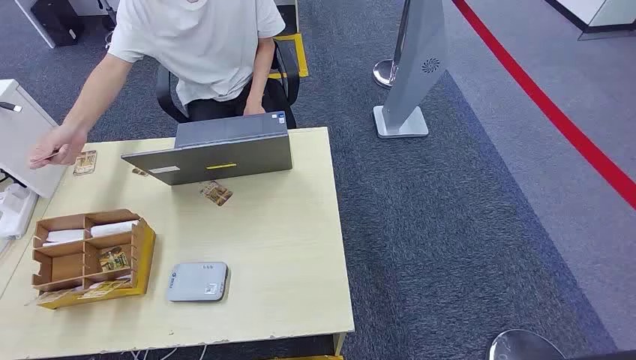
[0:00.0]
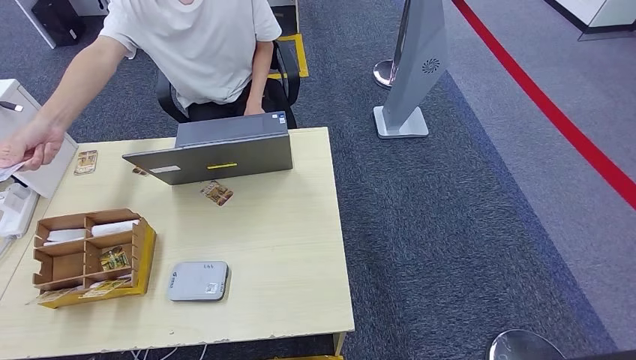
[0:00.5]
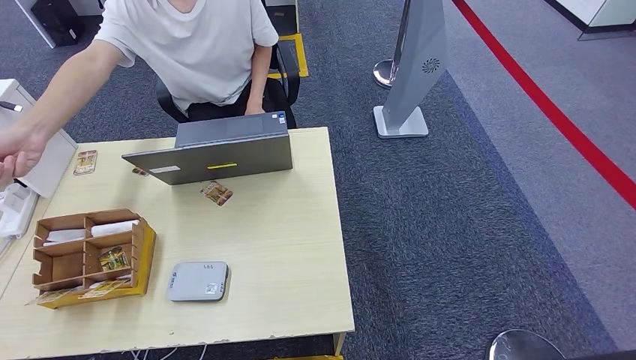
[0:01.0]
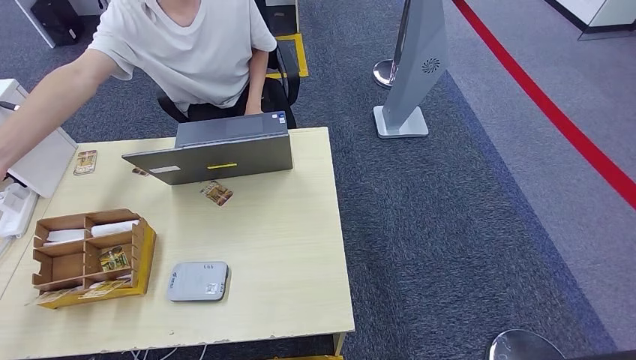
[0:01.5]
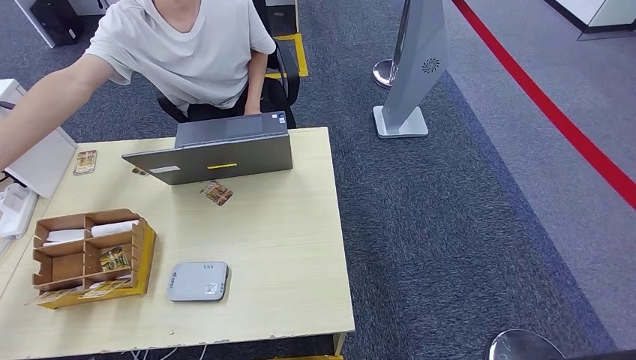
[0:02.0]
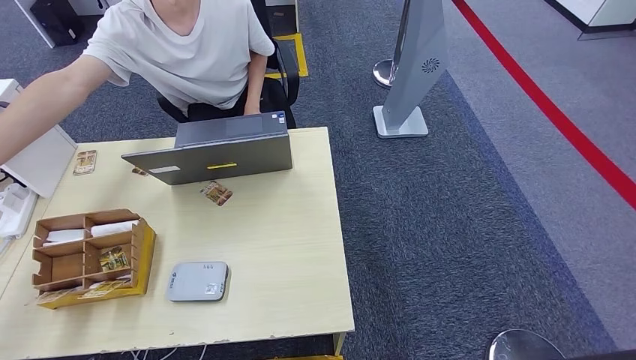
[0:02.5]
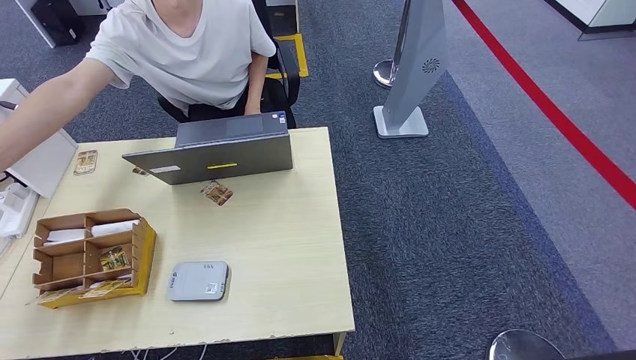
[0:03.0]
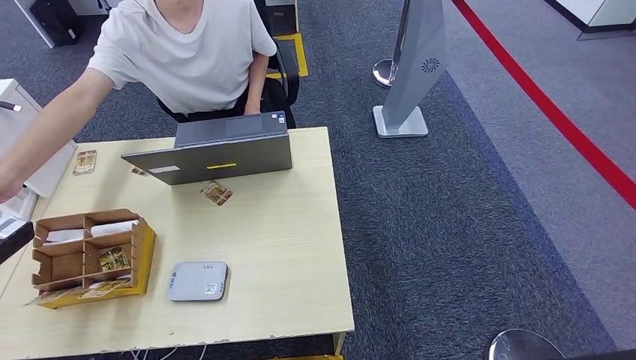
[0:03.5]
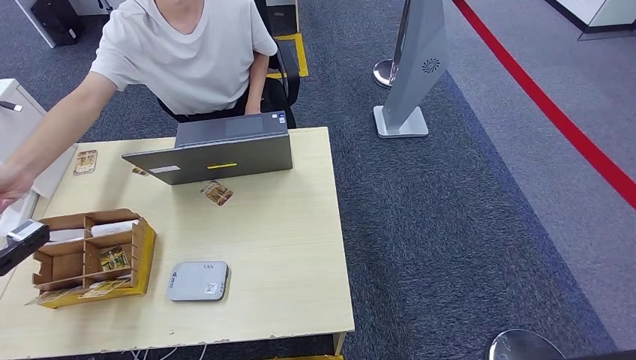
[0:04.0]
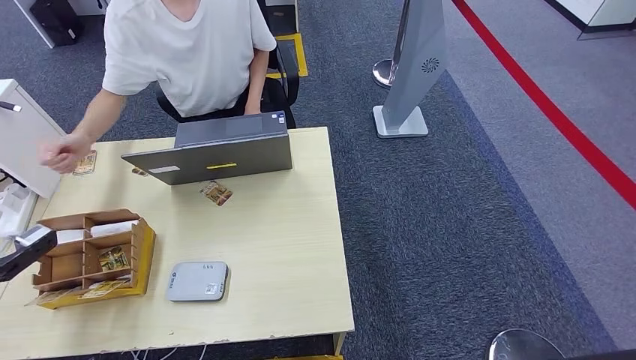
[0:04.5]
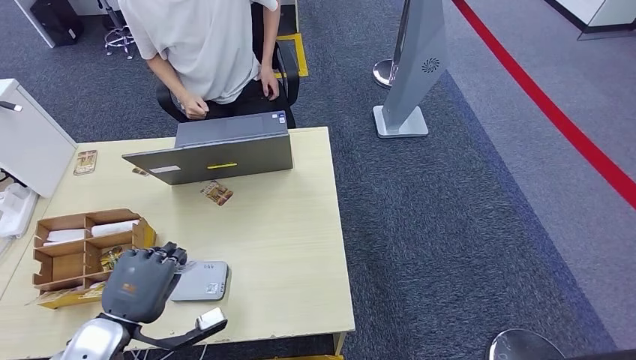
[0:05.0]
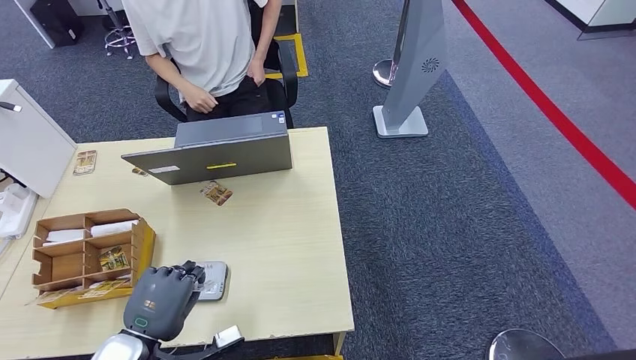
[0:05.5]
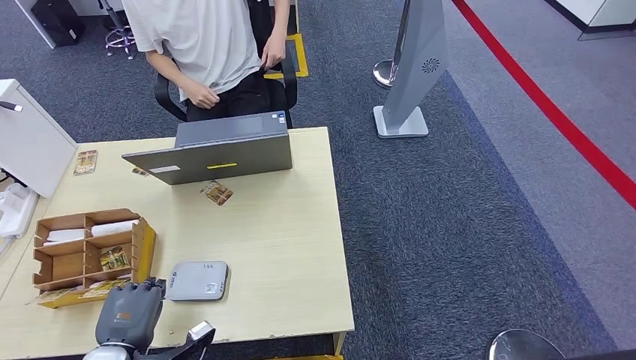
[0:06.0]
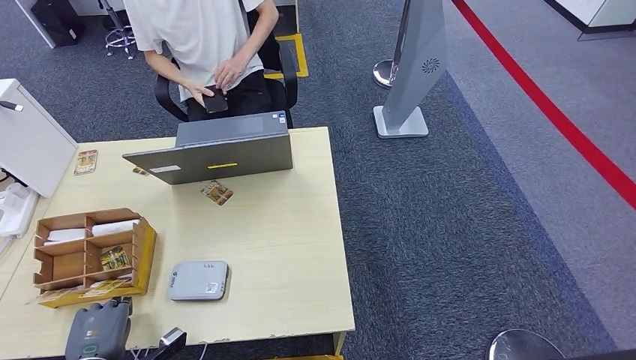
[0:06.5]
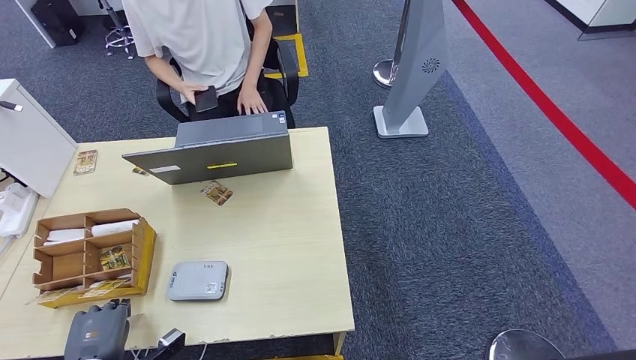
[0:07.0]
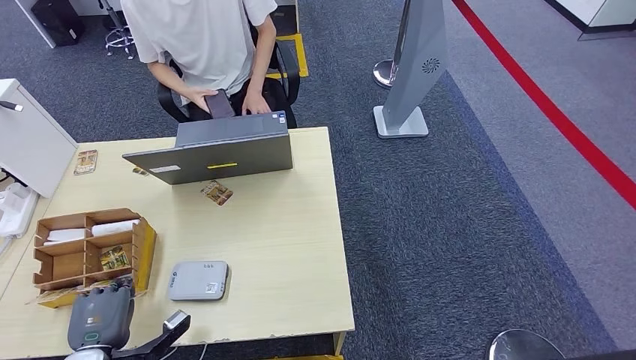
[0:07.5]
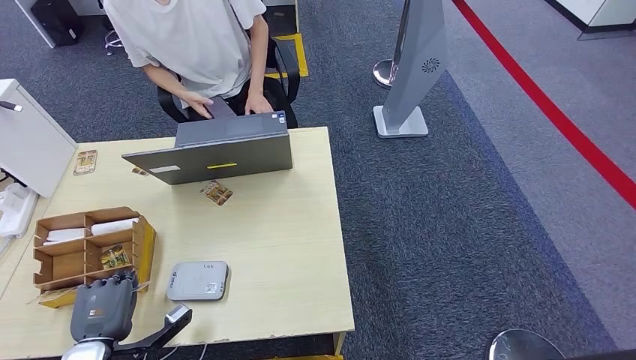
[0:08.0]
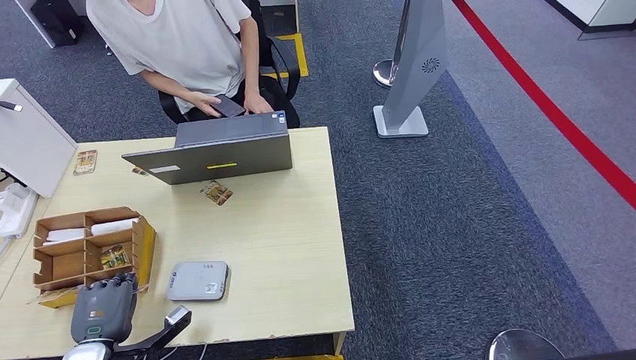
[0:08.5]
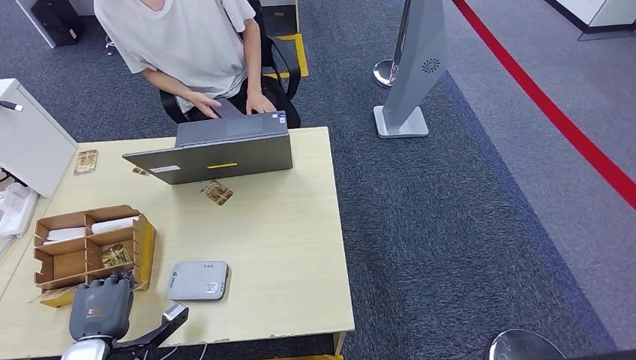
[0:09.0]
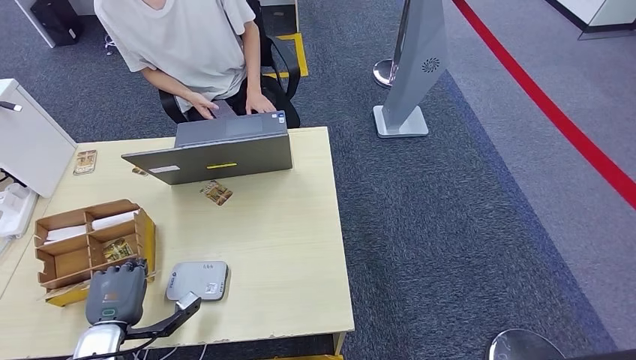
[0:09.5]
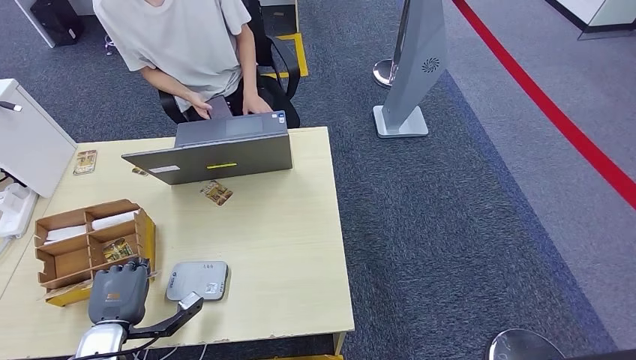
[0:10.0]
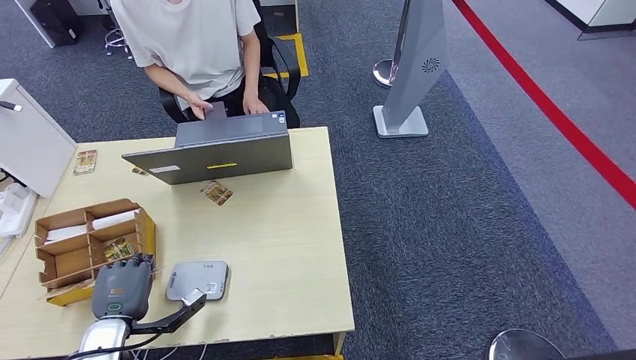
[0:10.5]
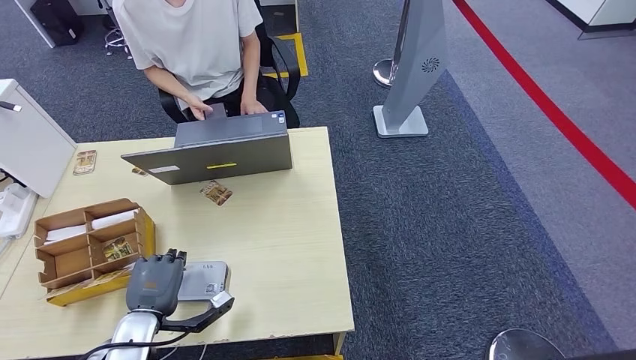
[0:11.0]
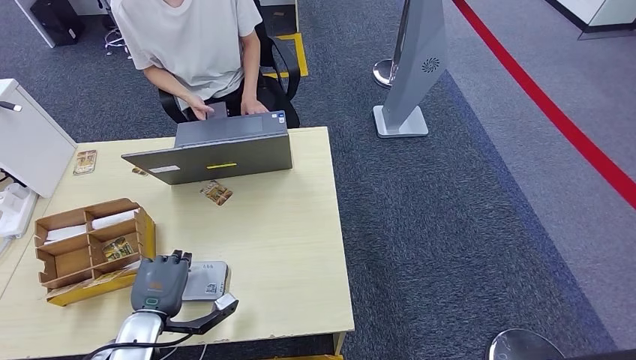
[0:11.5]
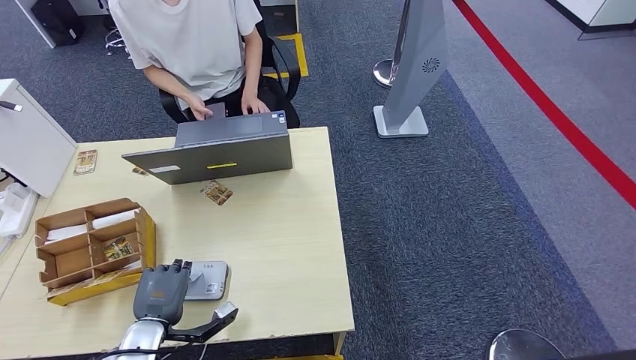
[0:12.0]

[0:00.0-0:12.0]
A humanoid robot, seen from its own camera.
Step, 0.0 to 4.0 s: Take the ID card from the person's hand.
Step, 4.5 to 7.0 s: Place the ID card on the card reader.
2.0 to 4.0 s: The left hand heads to the right and forward, covering roughly 10 cm.
4.0 to 6.0 s: The left hand goes some 25 cm to the right, downward and backward.
6.0 to 8.0 s: The left hand shifts by roughly 5 cm.
8.0 to 10.0 s: The hands make only small movements.
10.0 to 12.0 s: The left hand shifts roughly 5 cm to the right.

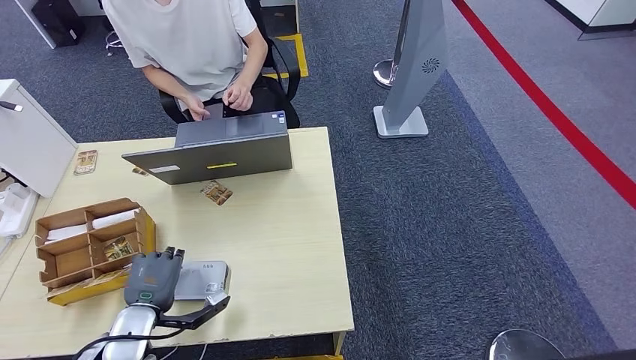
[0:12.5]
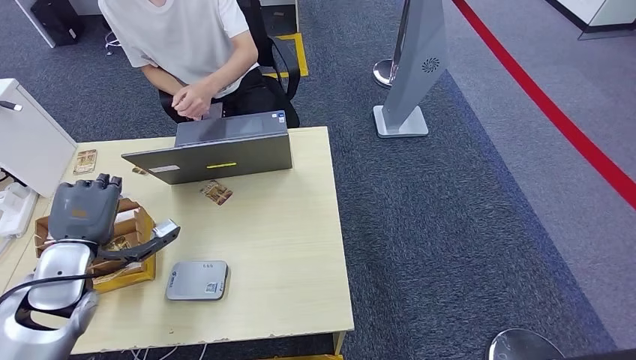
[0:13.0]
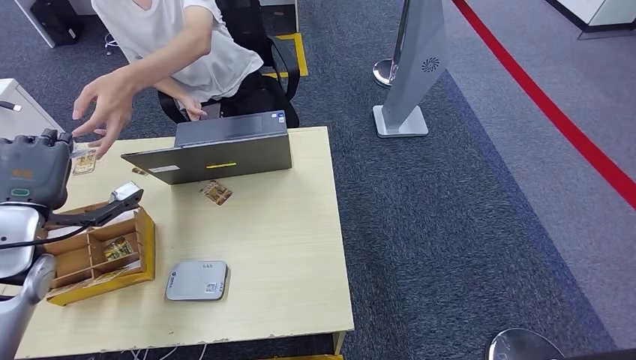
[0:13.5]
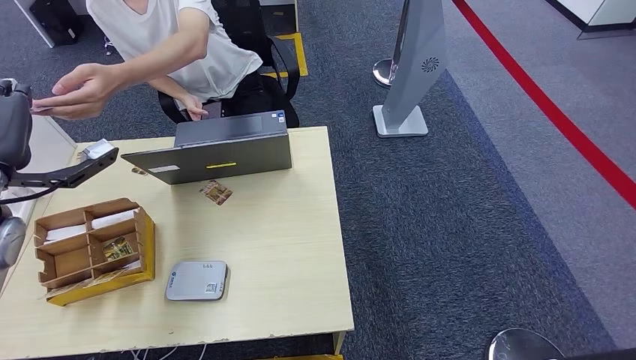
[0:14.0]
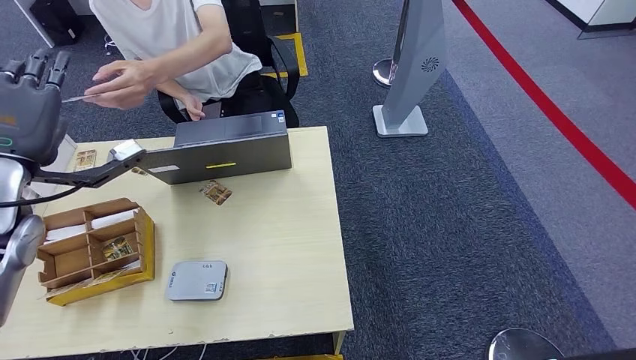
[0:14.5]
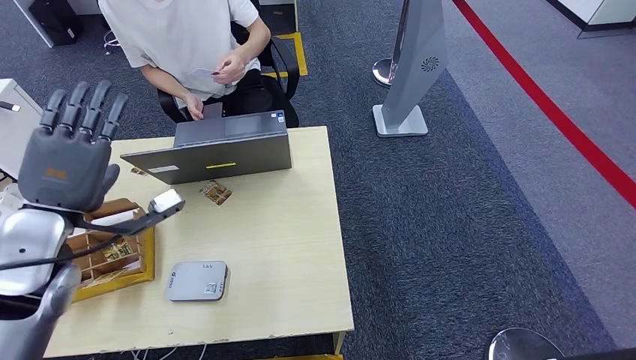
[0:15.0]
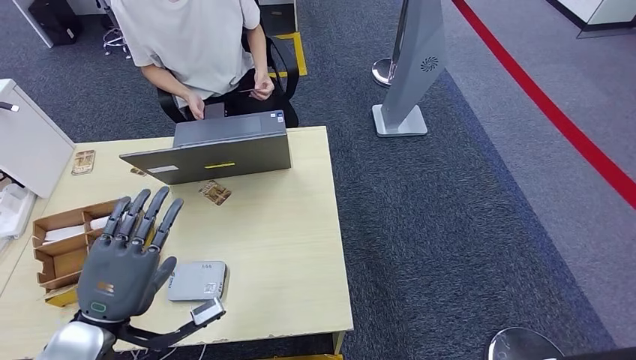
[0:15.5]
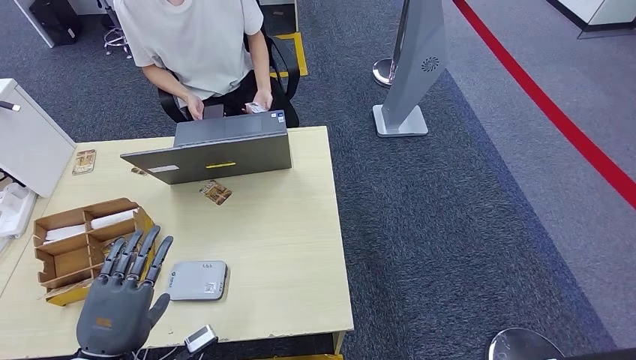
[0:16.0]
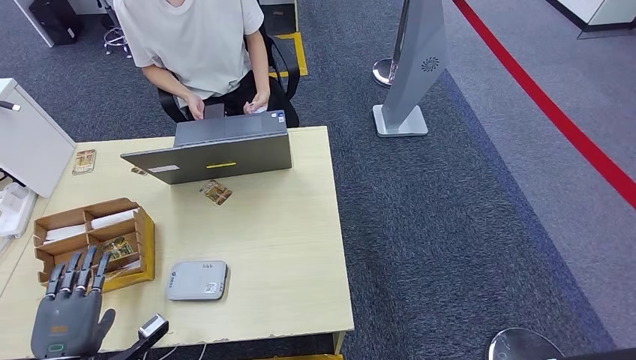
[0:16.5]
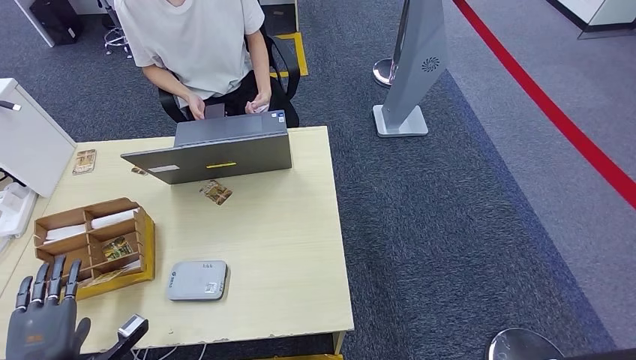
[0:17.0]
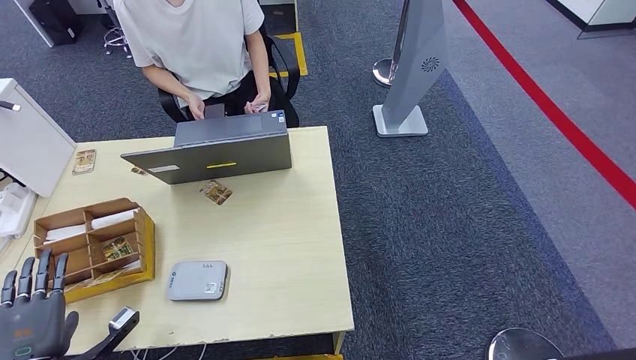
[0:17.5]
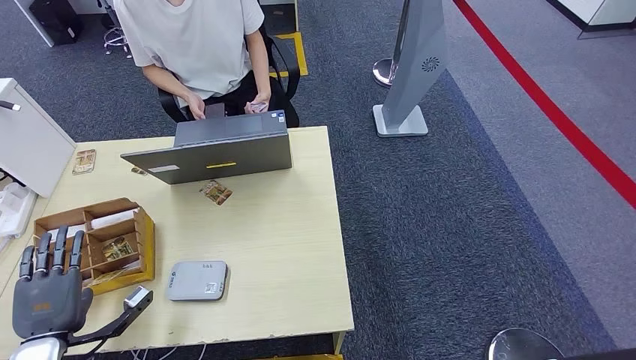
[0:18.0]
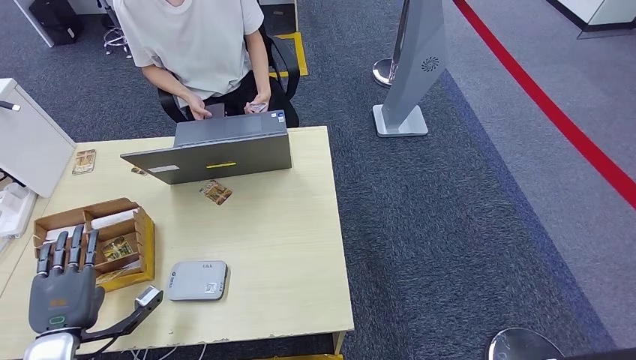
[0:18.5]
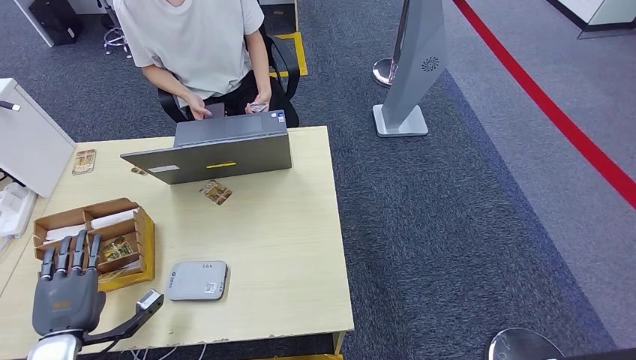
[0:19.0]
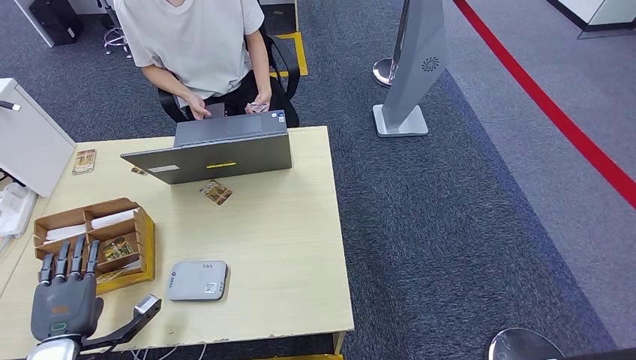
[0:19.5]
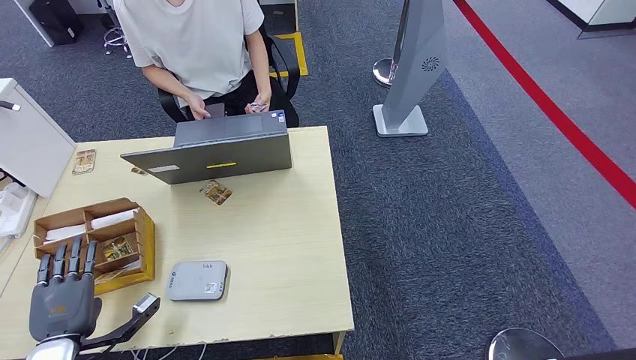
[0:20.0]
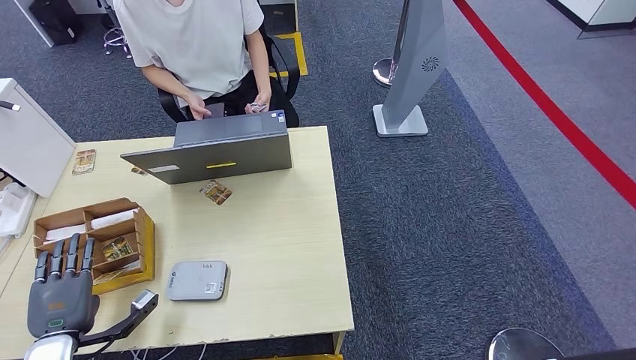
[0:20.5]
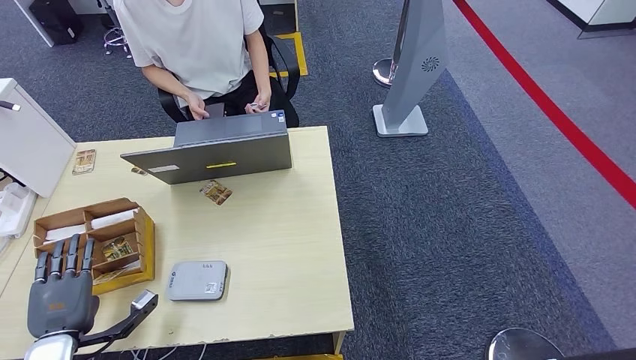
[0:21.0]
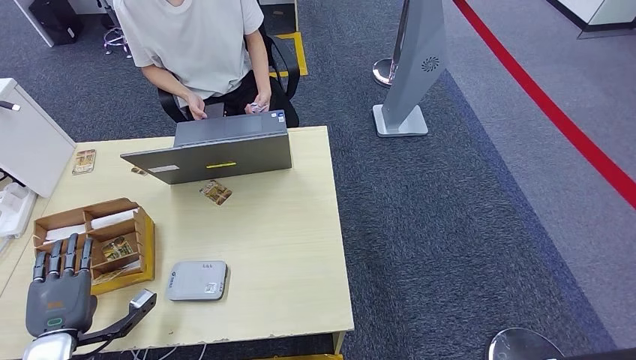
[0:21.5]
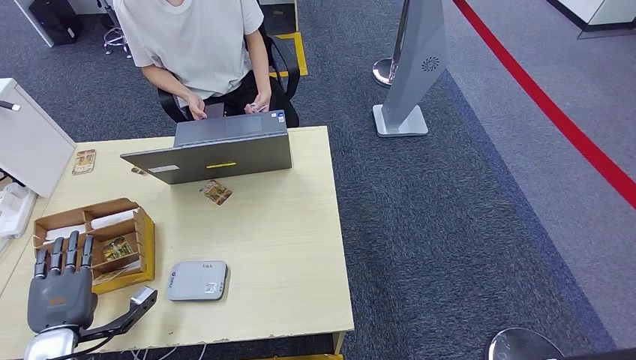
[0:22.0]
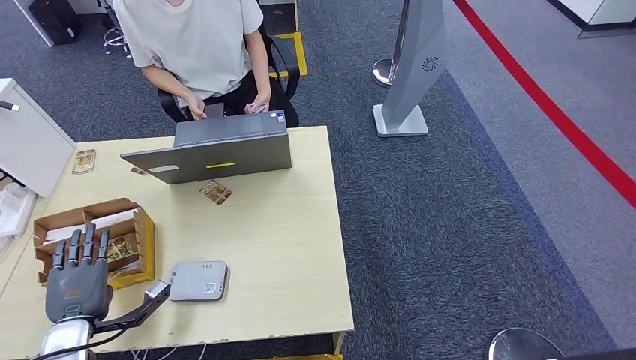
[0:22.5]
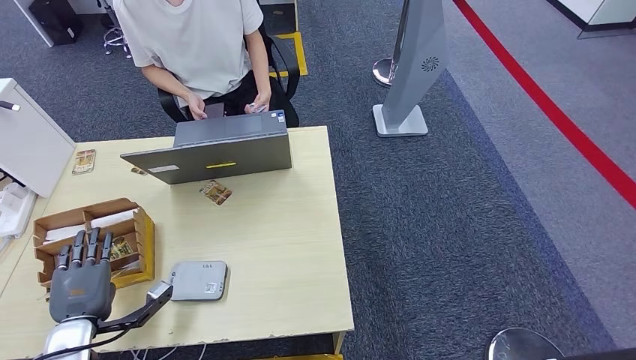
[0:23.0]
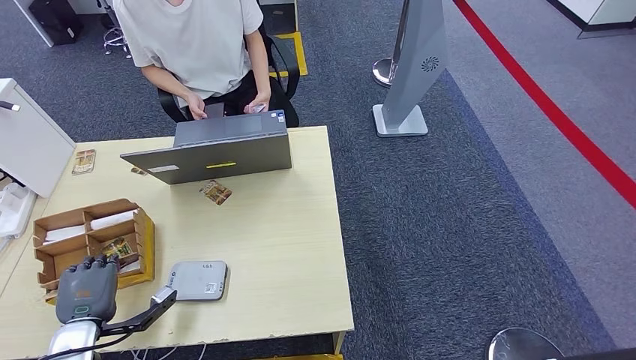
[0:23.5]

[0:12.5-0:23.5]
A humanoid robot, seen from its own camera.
Step, 12.5 to 15.0 s: Hand the ID card to the person.
12.5 to 14.5 s: The left hand is displaced upward by roughly 25 cm.
14.5 to 16.0 s: The left hand shifts approximately 25 cm downward and backward.
16.0 to 18.0 s: The left hand goes roughly 10 cm to the left.
18.0 to 20.0 s: The hands stay close to where they were, moving slightly.
20.0 to 21.5 s: Neither hand changes place.
21.5 to 23.5 s: The hands make only small movements.
